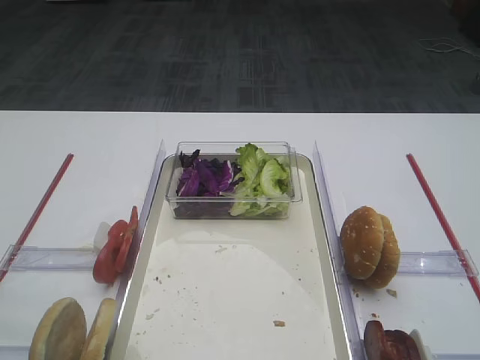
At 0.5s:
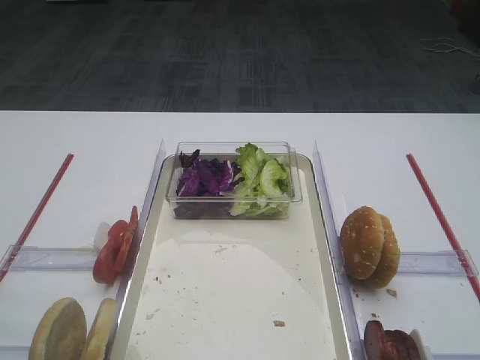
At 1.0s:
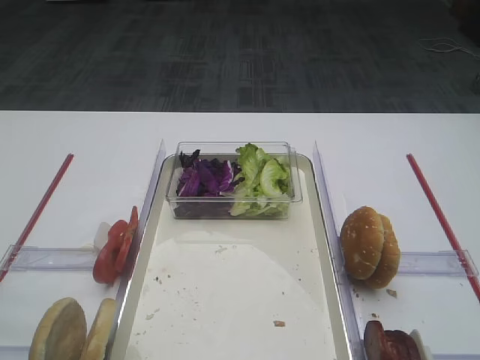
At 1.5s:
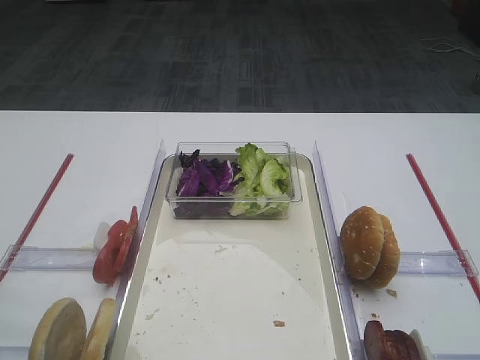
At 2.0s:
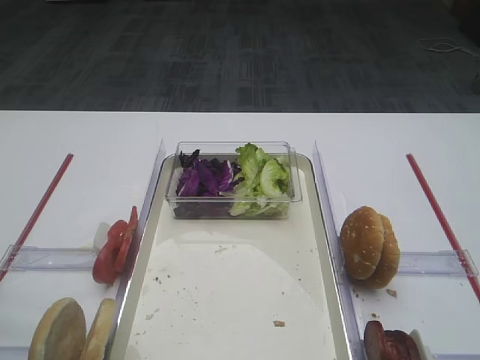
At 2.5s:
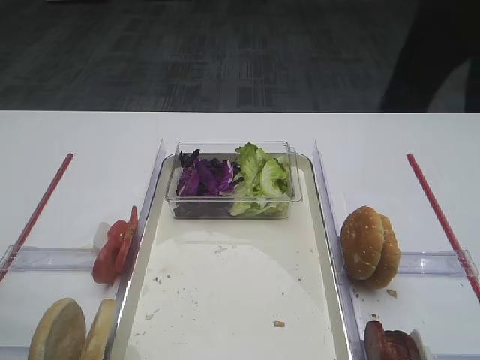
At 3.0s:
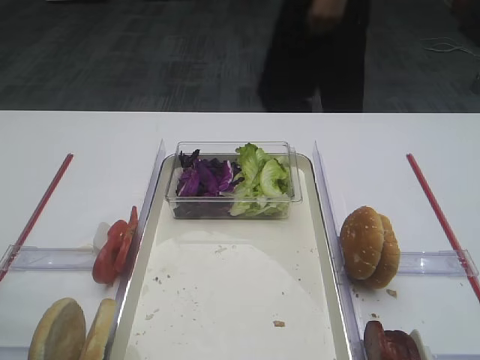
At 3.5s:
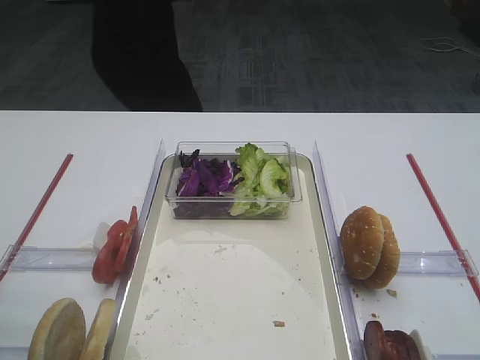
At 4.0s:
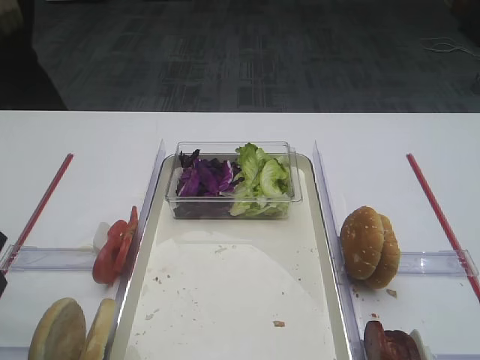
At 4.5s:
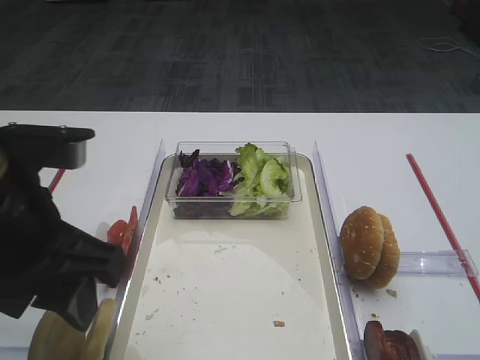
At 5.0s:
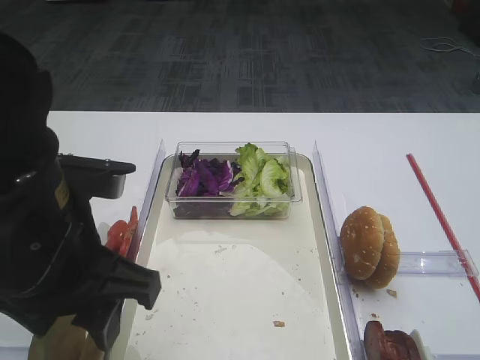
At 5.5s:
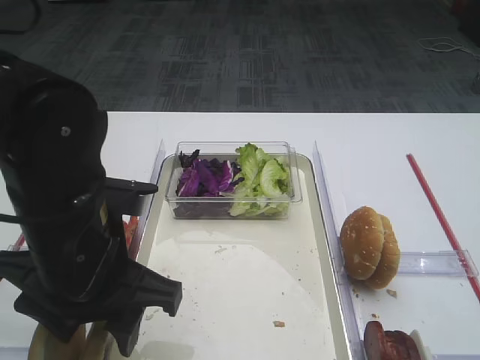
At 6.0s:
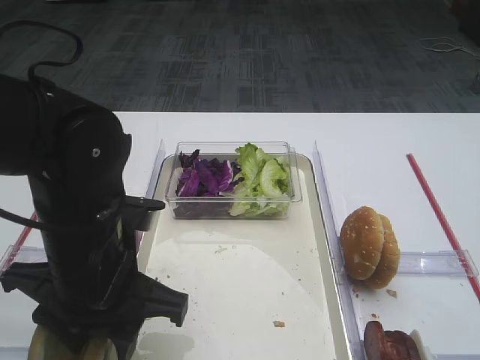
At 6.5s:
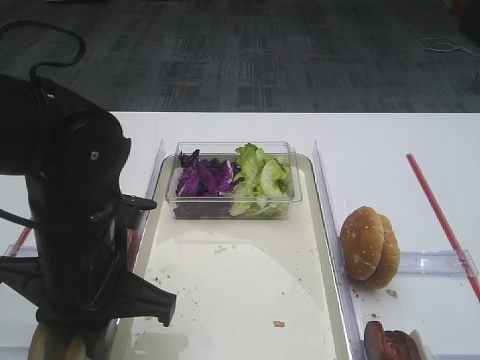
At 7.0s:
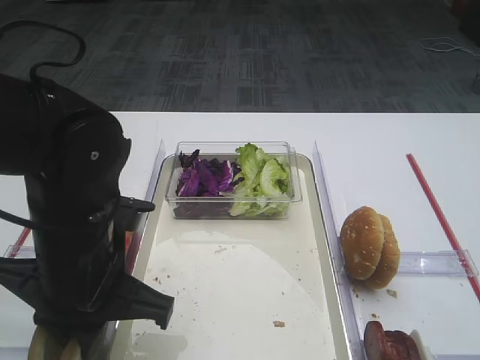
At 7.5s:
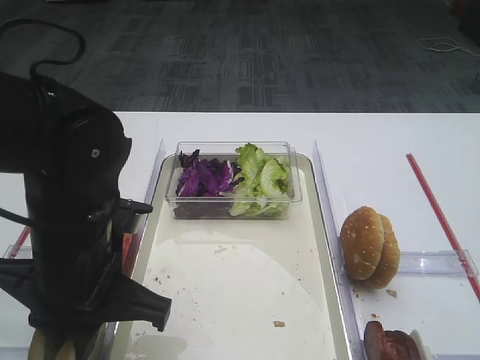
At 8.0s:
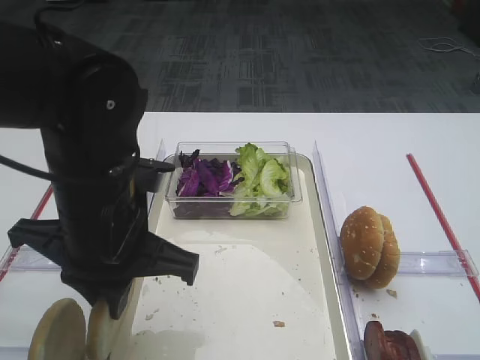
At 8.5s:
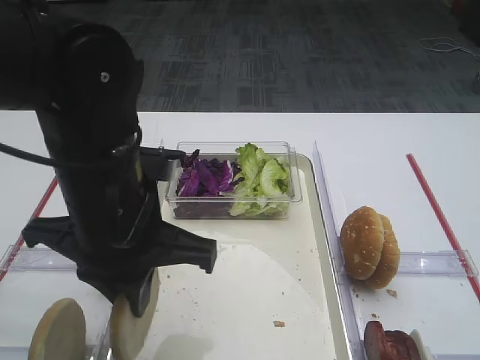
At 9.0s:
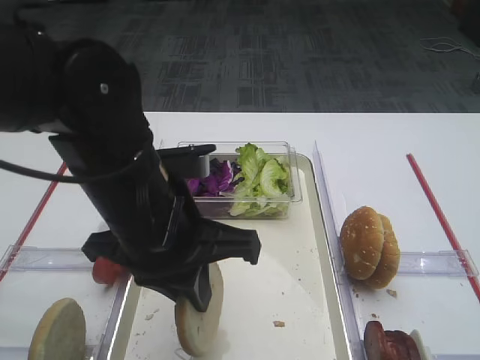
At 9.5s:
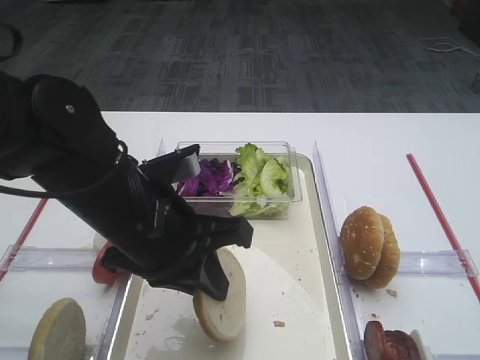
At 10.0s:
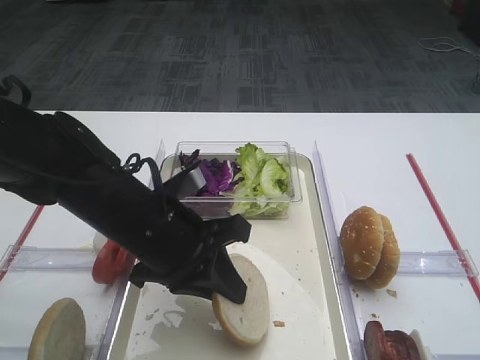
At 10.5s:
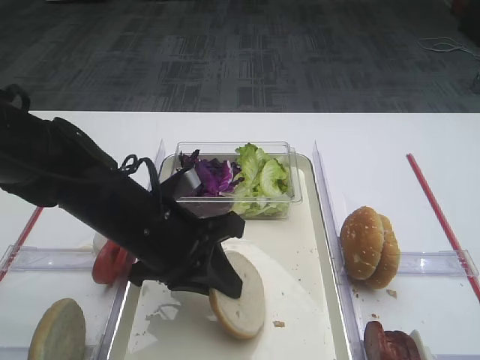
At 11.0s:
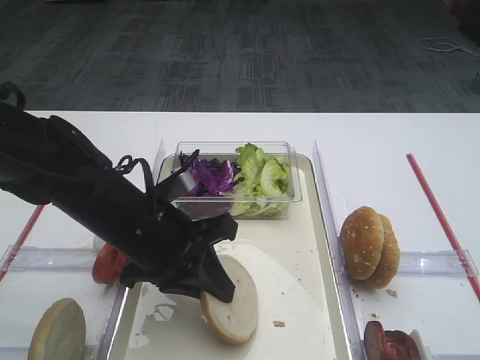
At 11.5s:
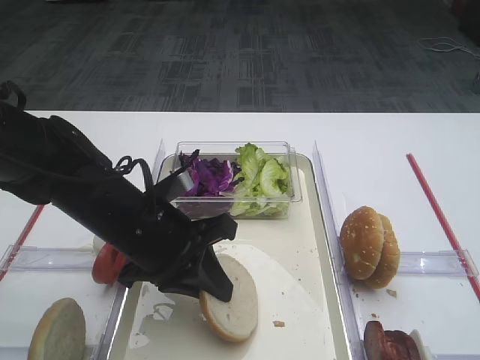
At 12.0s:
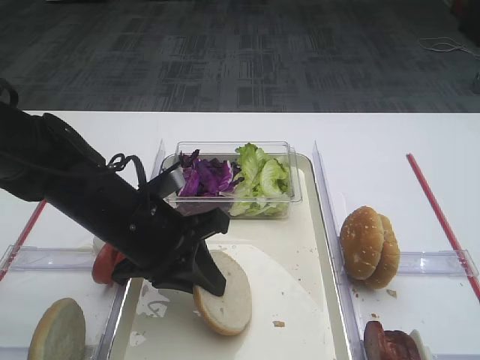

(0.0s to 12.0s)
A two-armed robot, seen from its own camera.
Step, 0.0s - 7.5s: Pick up the bread slice with the left gripper.
2.0s - 4.0s: The left gripper moves forward and to the right, approximately 10 cm.
4.0s - 6.0s: The left gripper moves to the right, downward and forward, some 15 cm.
6.0s - 8.0s: The left gripper closes up.
8.0s - 10.0s: The left gripper moves downward, some 5 cm.
10.0s - 12.0s: The grippers make only small movements.

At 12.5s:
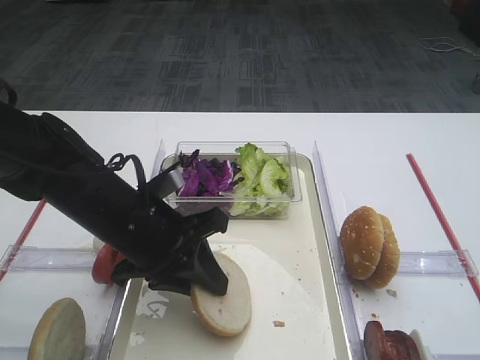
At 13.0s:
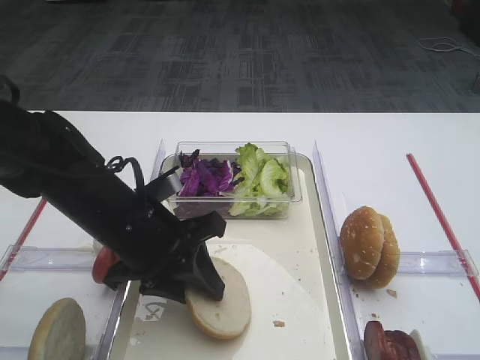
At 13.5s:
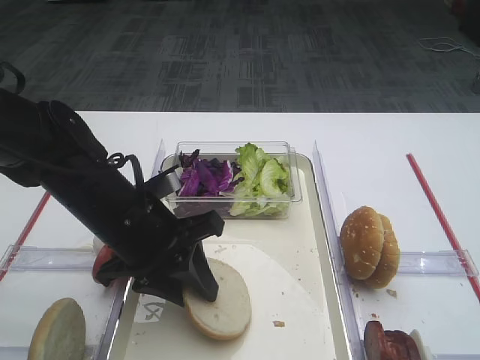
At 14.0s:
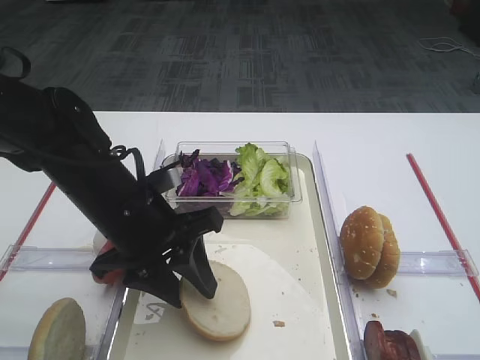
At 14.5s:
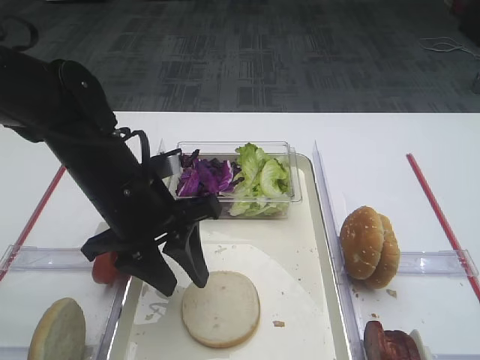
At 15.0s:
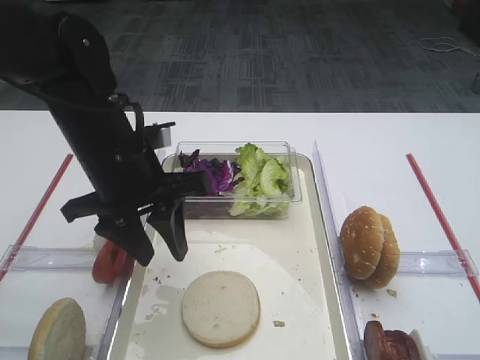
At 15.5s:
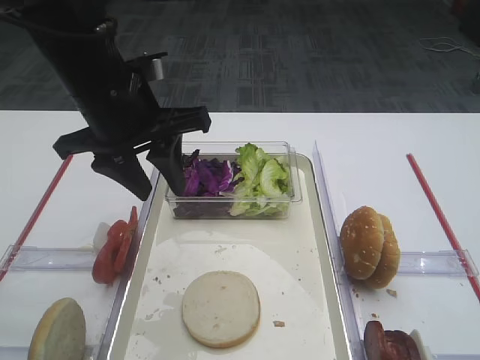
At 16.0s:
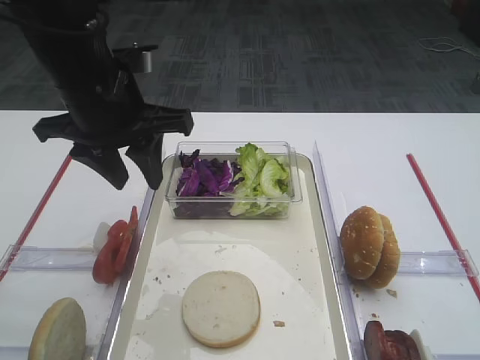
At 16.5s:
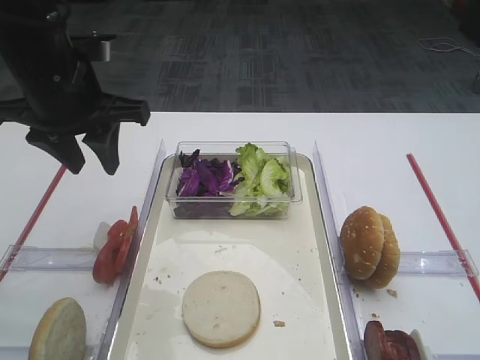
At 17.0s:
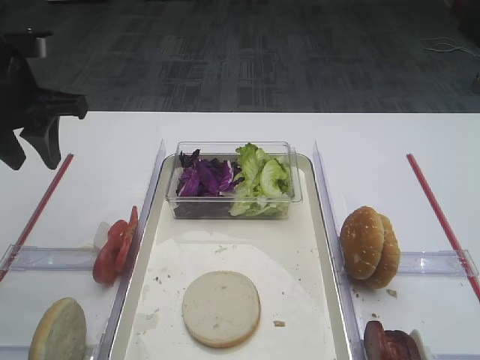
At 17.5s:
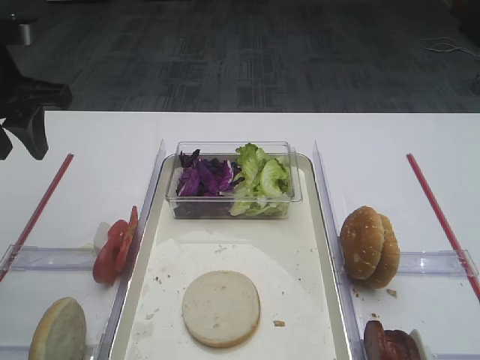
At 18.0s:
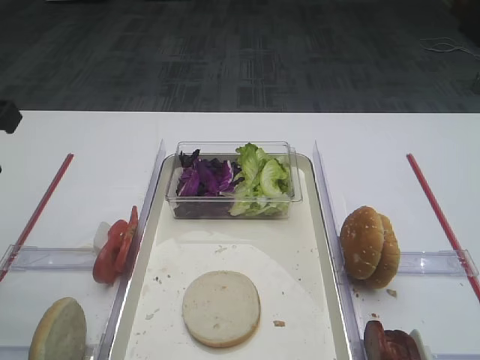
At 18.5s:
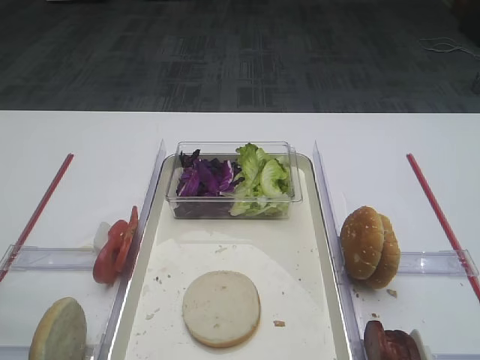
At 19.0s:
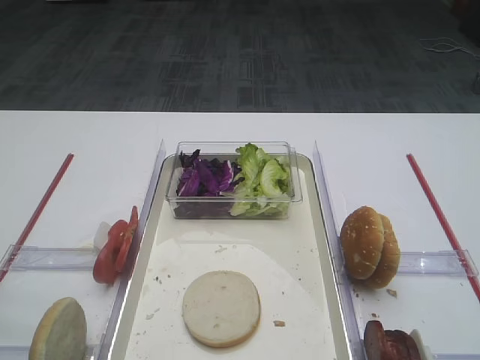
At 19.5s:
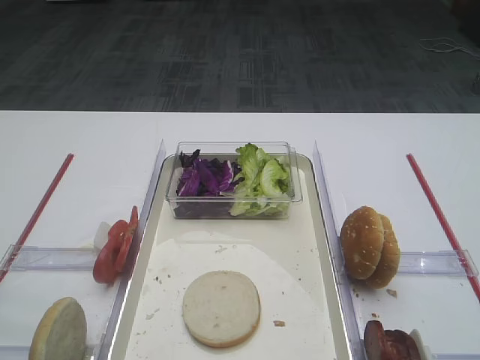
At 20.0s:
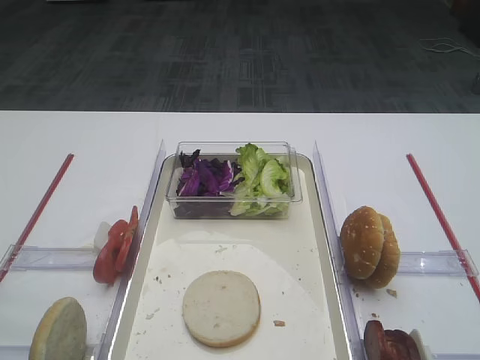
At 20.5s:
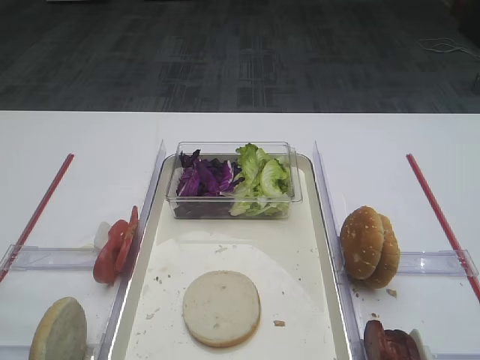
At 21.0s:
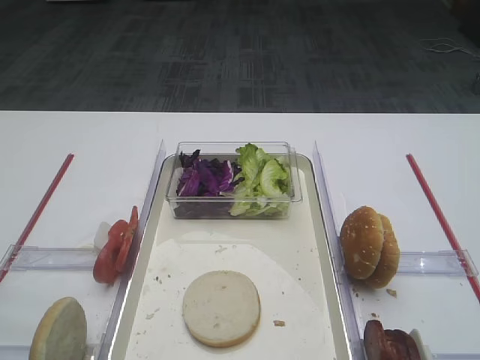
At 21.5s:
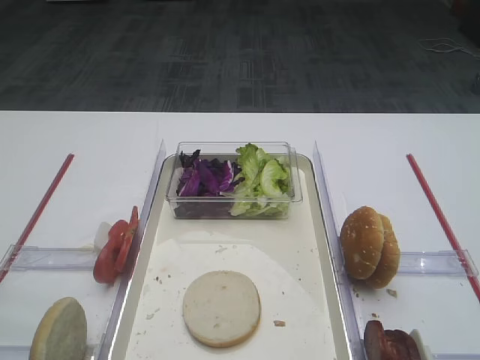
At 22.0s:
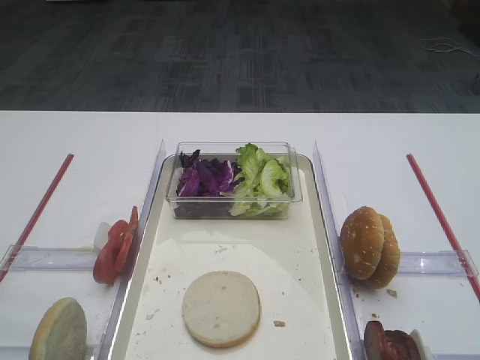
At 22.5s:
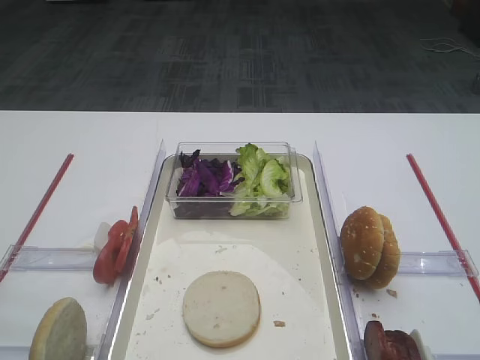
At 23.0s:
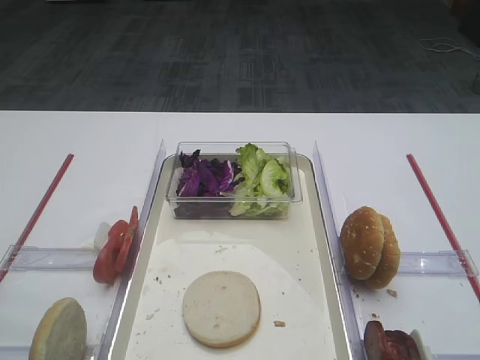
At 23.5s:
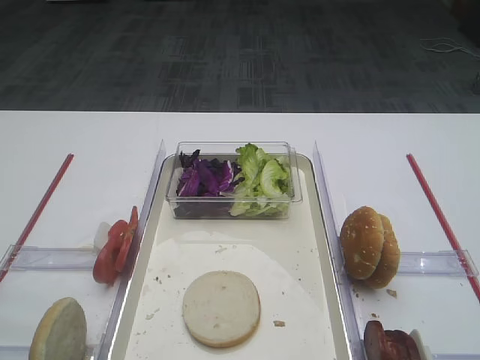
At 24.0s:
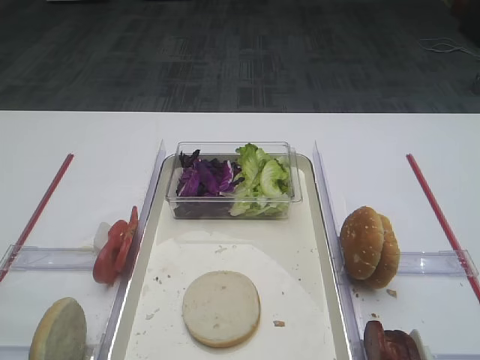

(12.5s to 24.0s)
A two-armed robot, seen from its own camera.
Step, 12.5s - 14.5s: Place the bread slice on the tray with the left gripper.
12.5s - 14.5s: The left gripper opens up.
14.5s - 16.5s: The left gripper is displaced upward, to the left and forward by about 15 cm.
16.5s - 18.5s: The left gripper shifts about 20 cm backward and to the left.
22.0s - 24.0s: Neither gripper changes place.

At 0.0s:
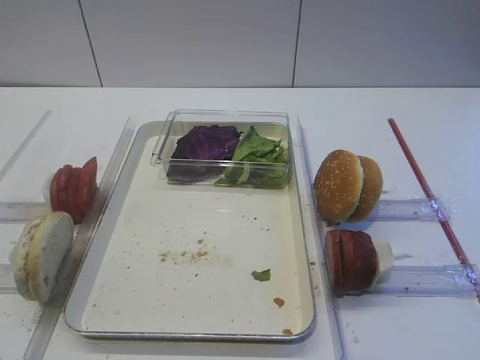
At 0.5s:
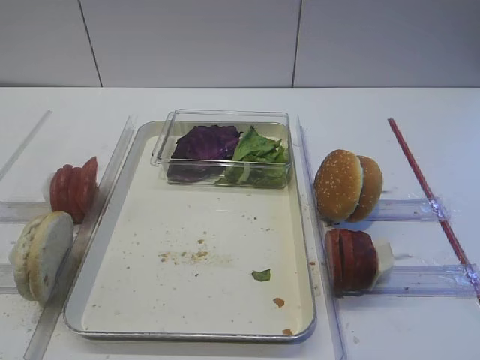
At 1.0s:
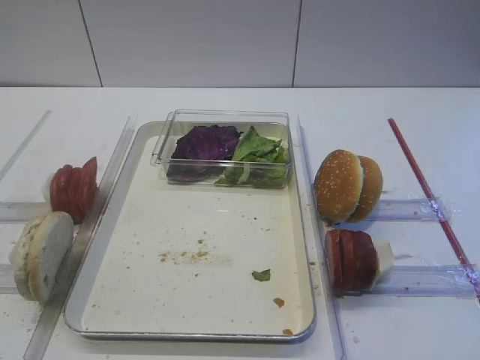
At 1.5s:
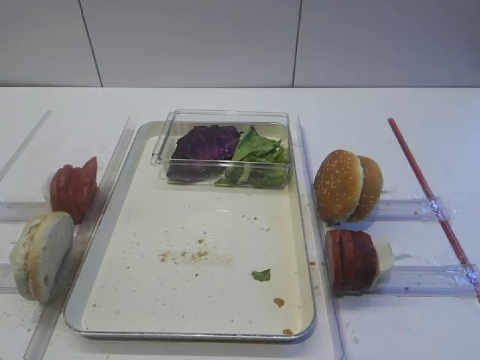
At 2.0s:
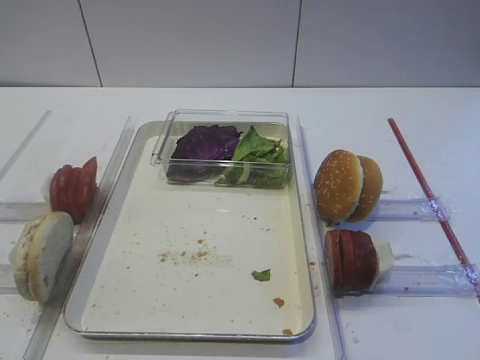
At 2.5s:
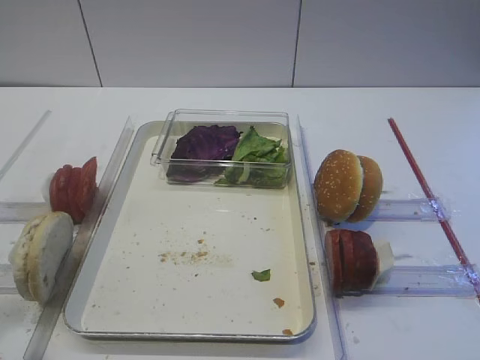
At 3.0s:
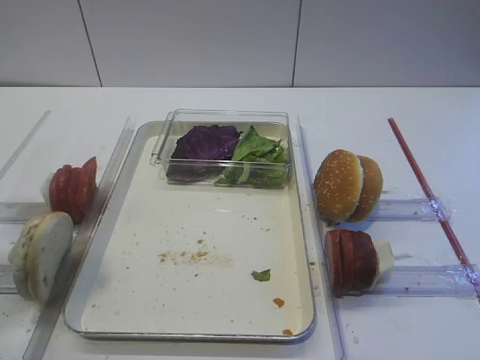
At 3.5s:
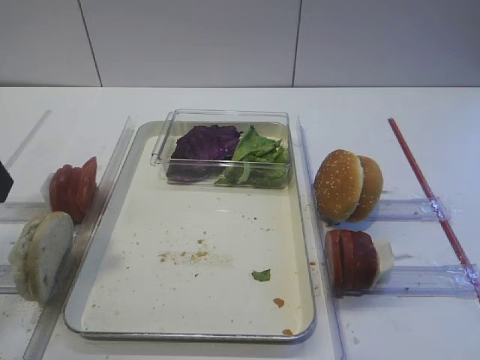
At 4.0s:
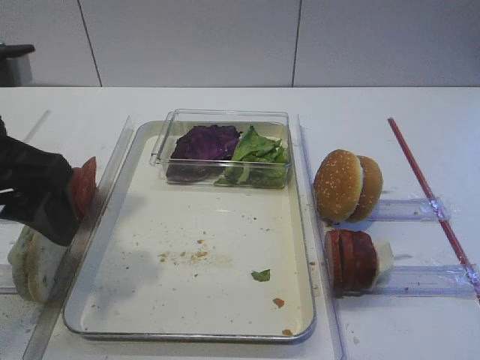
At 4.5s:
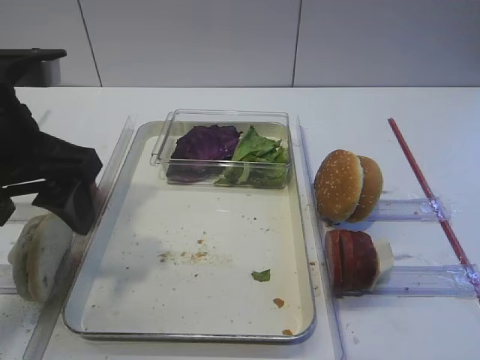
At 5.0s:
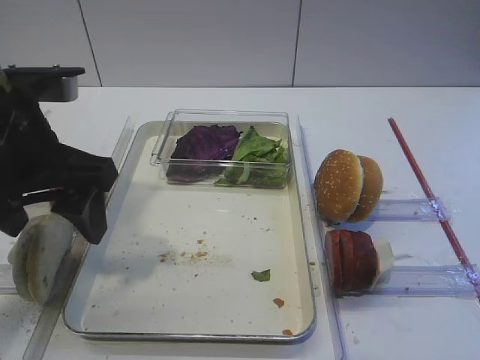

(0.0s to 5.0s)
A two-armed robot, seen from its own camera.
2.5s - 5.0s: The left gripper shifts some 20 cm forward and to the right.
